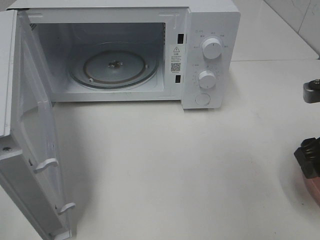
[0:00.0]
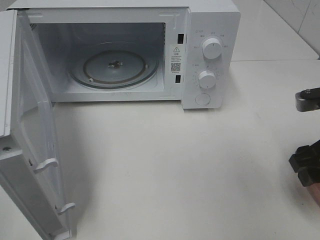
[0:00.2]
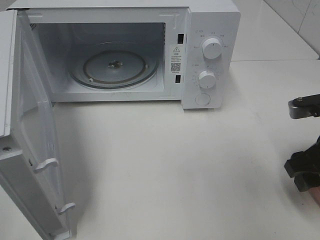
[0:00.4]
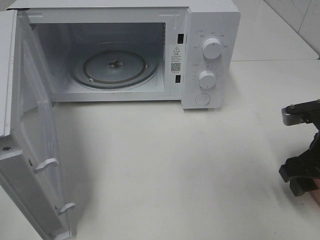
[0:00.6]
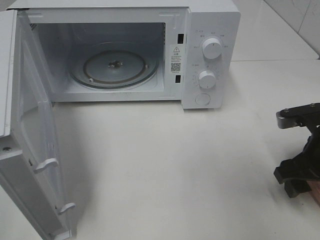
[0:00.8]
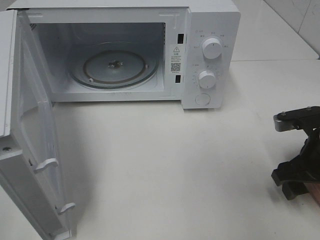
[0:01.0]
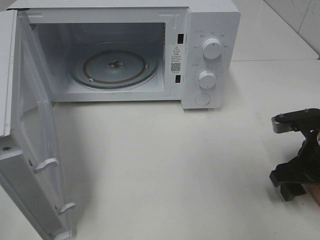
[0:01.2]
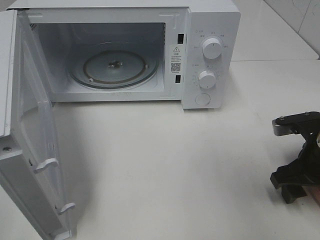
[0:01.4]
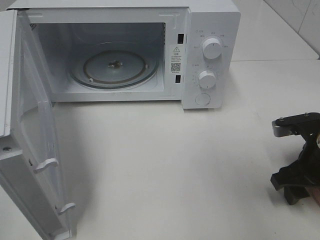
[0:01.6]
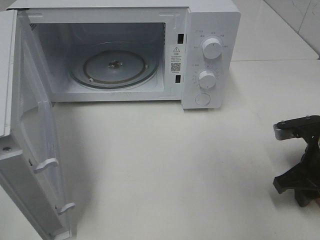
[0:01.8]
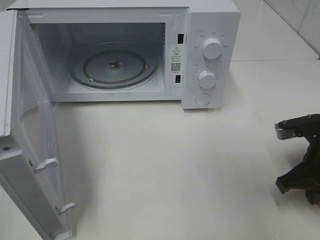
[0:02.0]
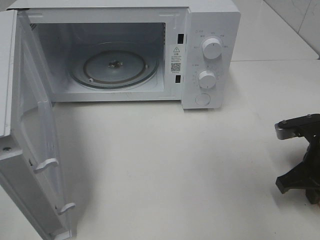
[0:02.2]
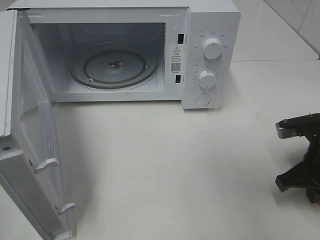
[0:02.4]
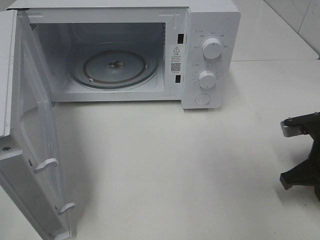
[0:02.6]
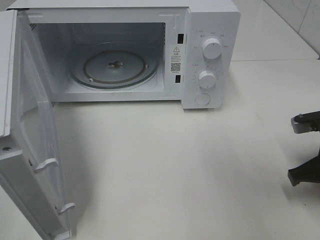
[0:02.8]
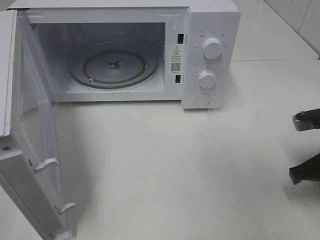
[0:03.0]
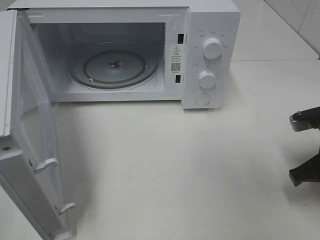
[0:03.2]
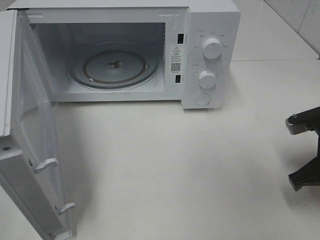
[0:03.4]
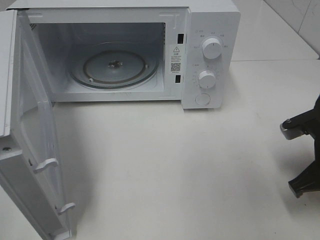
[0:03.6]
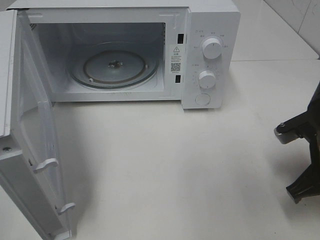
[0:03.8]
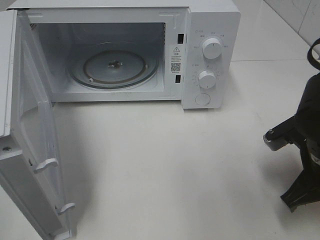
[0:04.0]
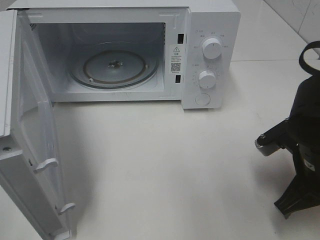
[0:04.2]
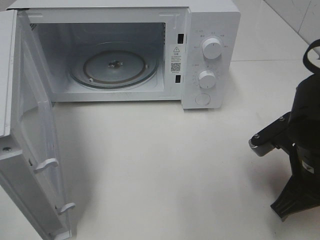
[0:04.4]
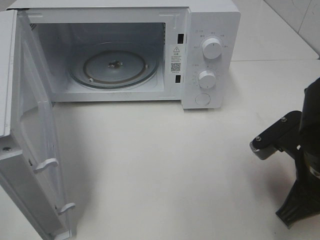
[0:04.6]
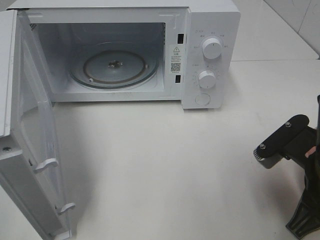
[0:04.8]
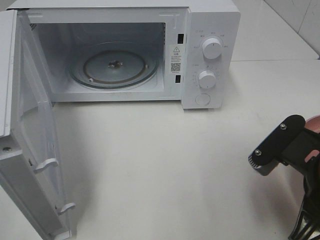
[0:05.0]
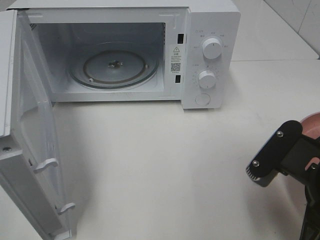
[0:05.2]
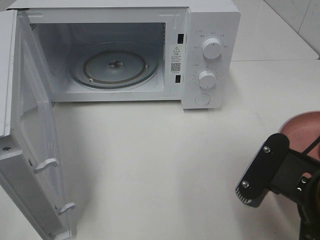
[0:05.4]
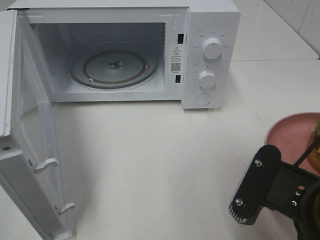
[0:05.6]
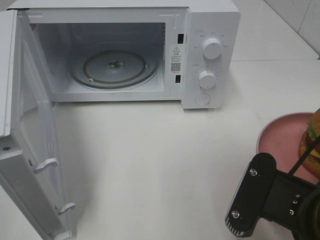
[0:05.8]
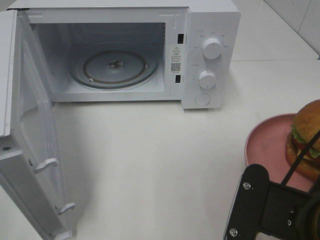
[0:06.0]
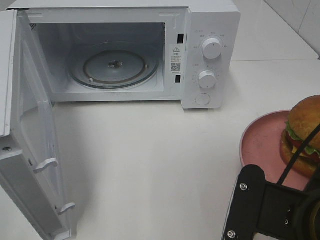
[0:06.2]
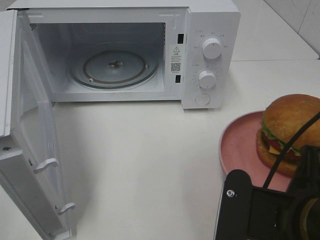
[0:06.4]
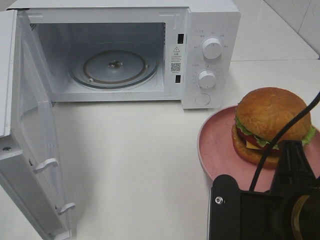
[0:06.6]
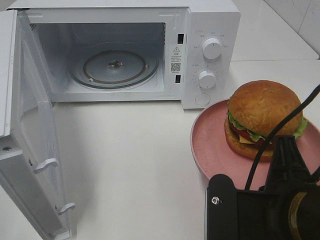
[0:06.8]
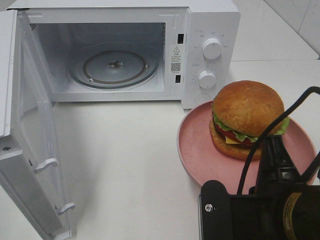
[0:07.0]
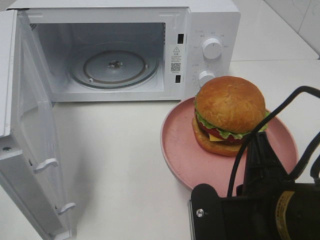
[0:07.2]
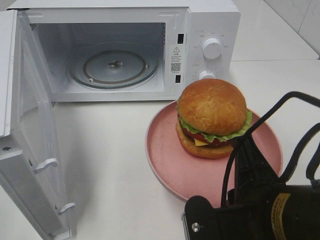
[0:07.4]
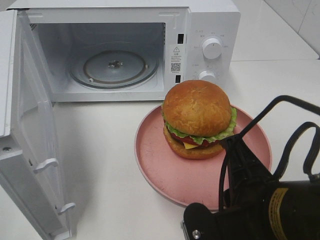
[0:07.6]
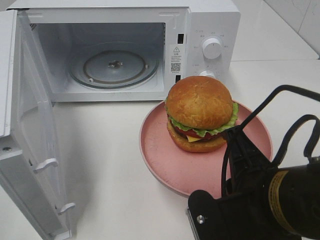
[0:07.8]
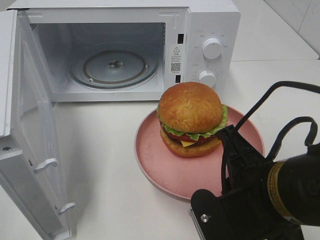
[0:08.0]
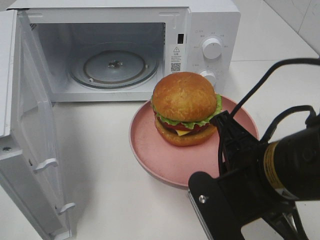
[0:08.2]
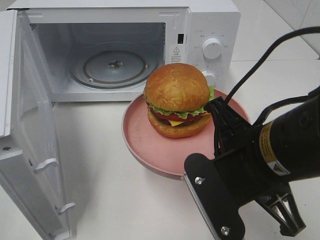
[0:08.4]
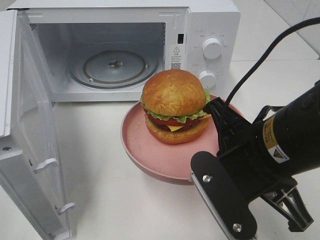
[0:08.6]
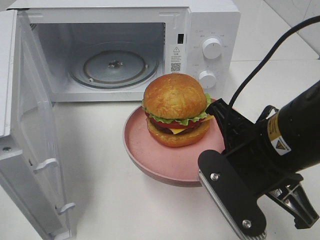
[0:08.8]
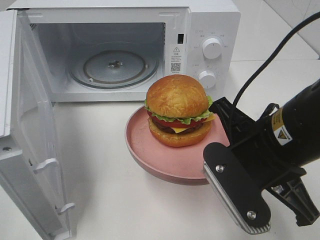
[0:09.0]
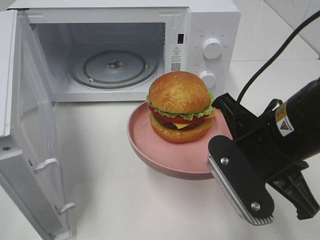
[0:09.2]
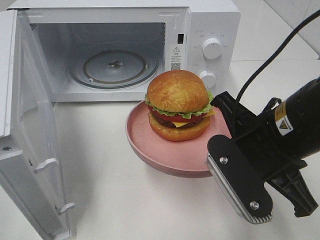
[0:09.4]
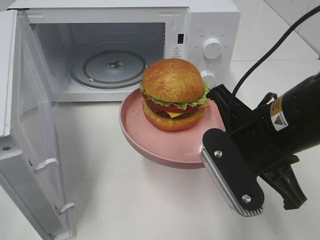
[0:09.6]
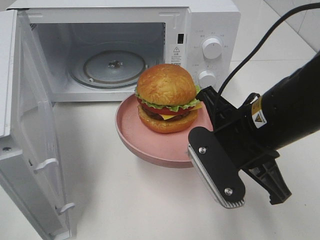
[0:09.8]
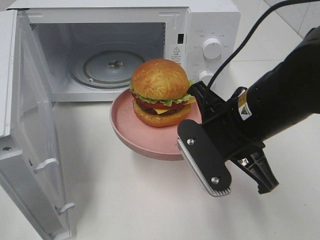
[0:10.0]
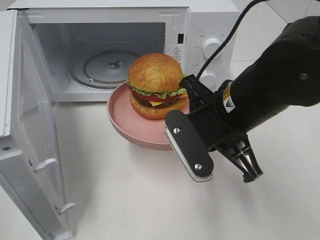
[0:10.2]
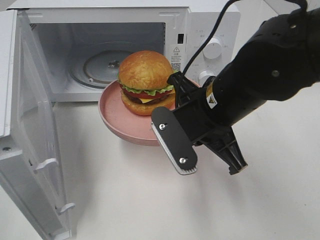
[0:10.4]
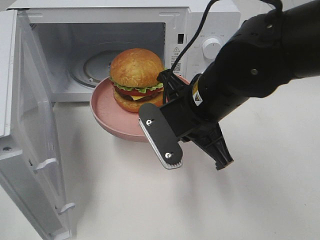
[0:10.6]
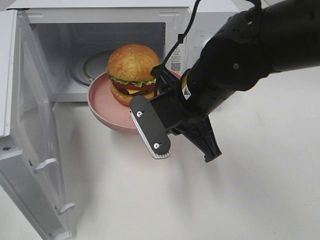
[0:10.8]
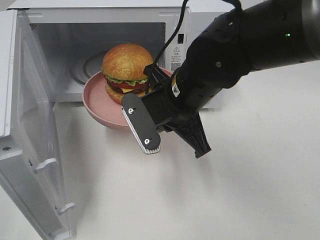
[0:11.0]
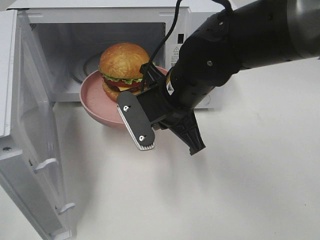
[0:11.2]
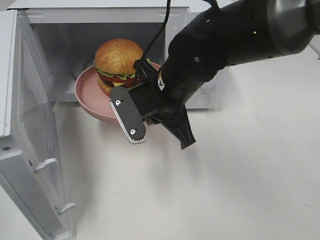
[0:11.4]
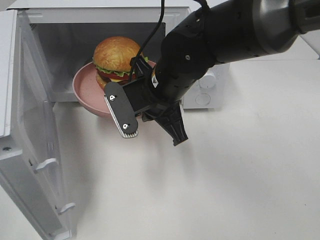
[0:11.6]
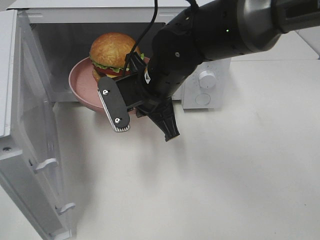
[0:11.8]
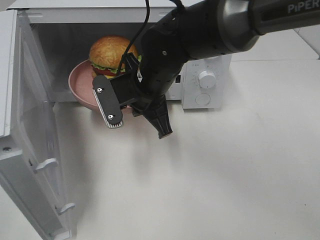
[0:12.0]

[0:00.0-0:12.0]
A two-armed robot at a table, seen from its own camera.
Task of the whole recording: Heat the burger.
Step, 0:00.0 to 0:02.6: Right hand: grab the plate with the hamburger.
0:00.0 to 0:01.6: The right gripper goes approximately 10 cm downward.
0:01.6 to 0:03.0: The right gripper closes up.
0:03.0 to 0:04.4: The right gripper shifts roughly 10 cm to the left.
0:04.4 to 0:06.0: The right gripper heads backward and to the left, covering about 10 cm.
0:07.6 to 0:09.0: The right gripper moves forward, about 10 cm.
0:09.0 to 0:10.4: The right gripper goes roughly 10 cm forward and to the left.
0:10.4 to 0:12.0: The right gripper shifts roughly 10 cm forward and to the left.

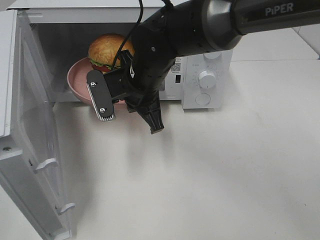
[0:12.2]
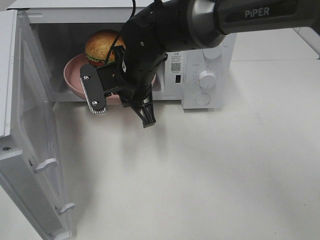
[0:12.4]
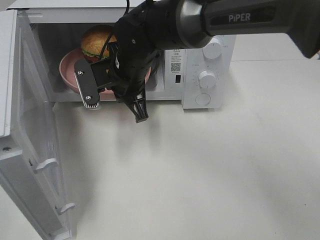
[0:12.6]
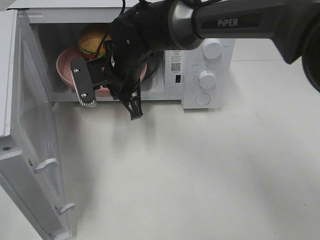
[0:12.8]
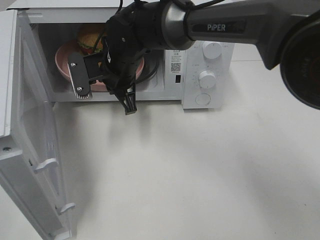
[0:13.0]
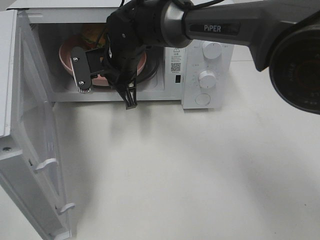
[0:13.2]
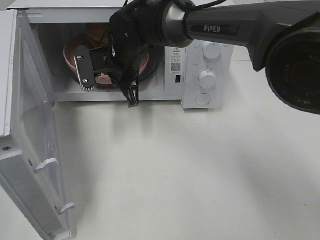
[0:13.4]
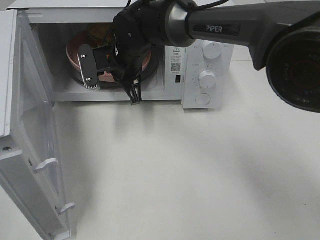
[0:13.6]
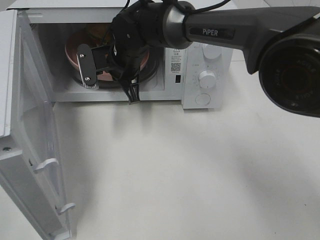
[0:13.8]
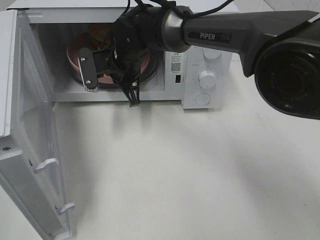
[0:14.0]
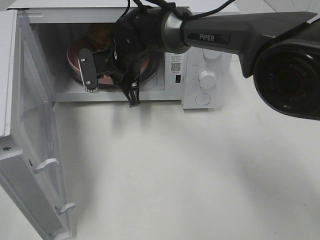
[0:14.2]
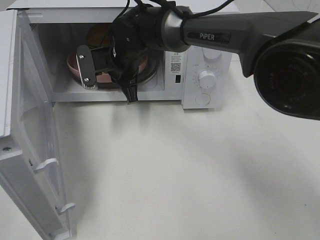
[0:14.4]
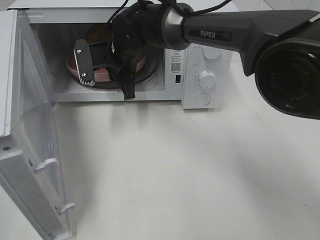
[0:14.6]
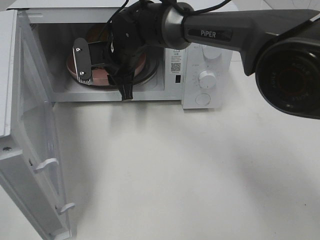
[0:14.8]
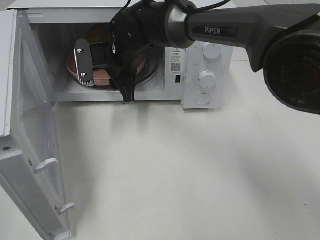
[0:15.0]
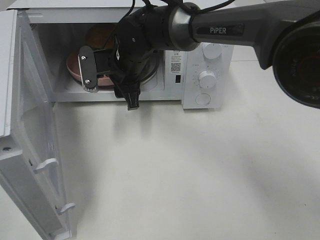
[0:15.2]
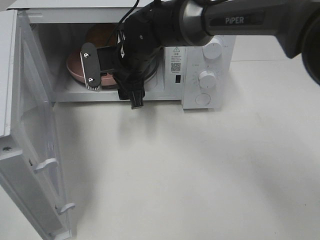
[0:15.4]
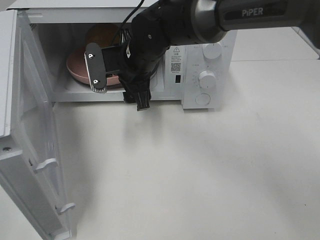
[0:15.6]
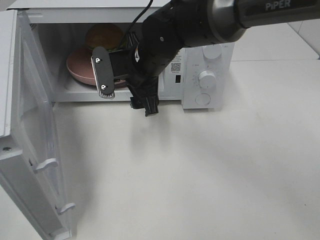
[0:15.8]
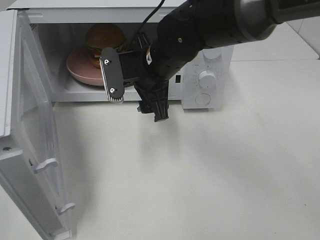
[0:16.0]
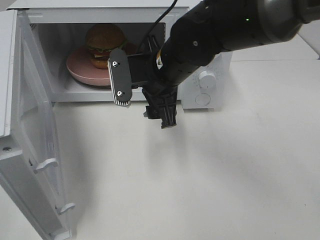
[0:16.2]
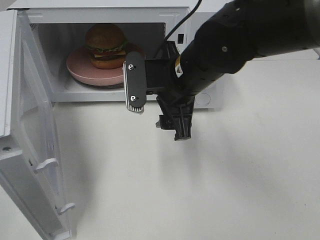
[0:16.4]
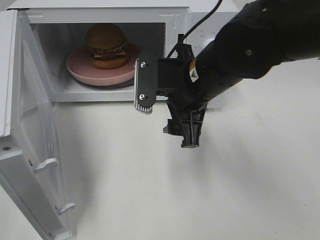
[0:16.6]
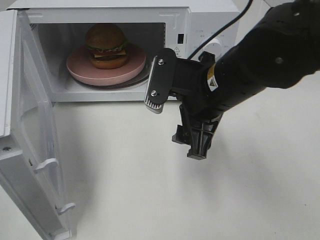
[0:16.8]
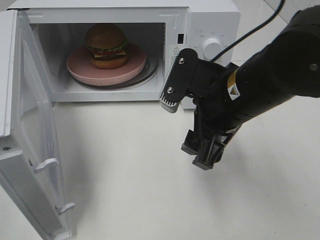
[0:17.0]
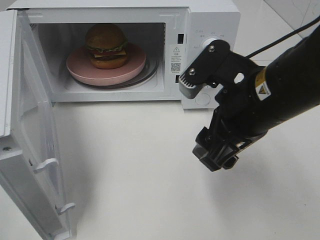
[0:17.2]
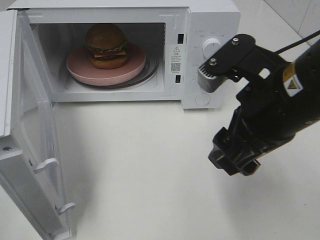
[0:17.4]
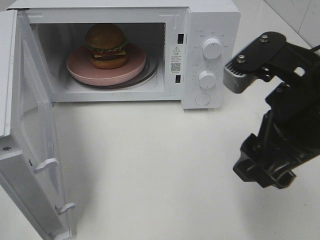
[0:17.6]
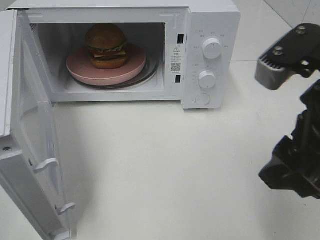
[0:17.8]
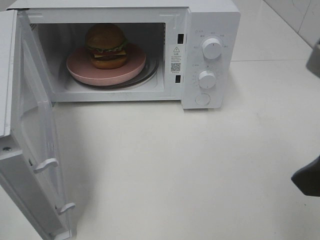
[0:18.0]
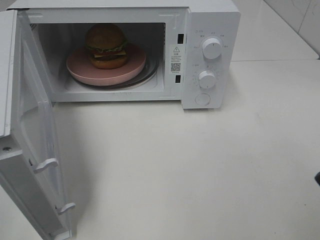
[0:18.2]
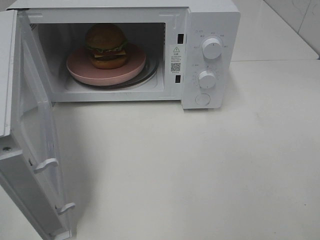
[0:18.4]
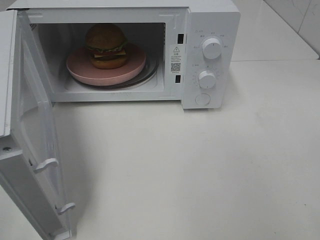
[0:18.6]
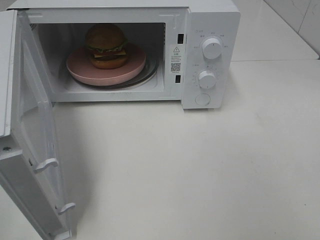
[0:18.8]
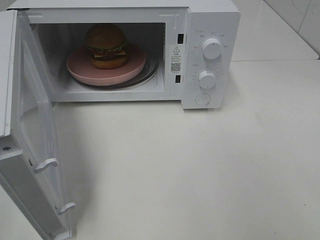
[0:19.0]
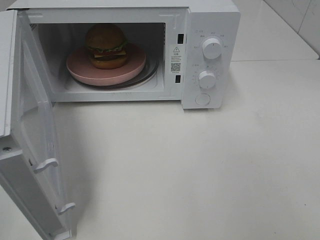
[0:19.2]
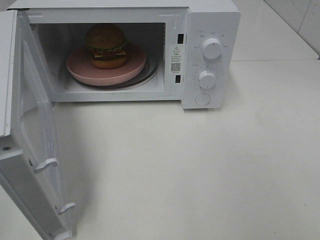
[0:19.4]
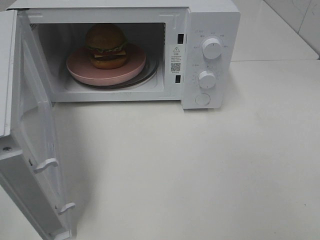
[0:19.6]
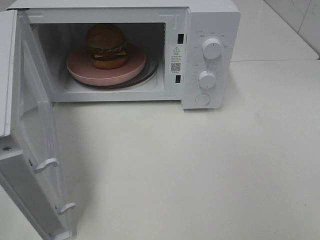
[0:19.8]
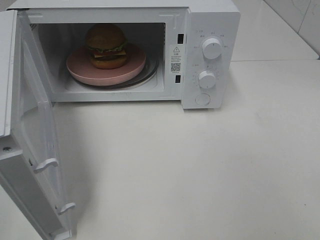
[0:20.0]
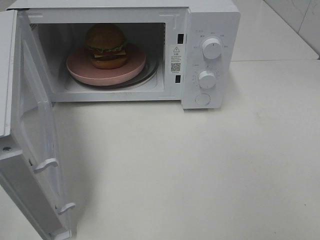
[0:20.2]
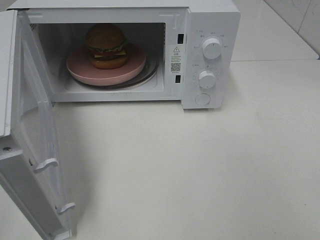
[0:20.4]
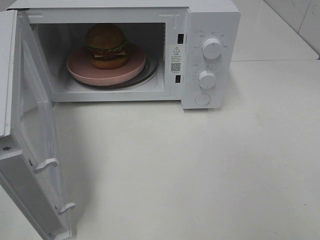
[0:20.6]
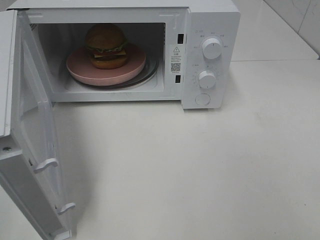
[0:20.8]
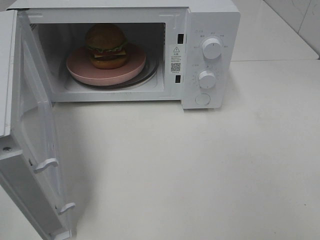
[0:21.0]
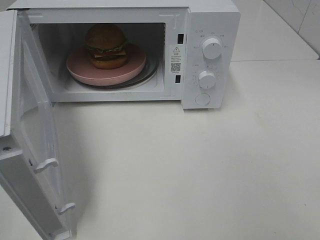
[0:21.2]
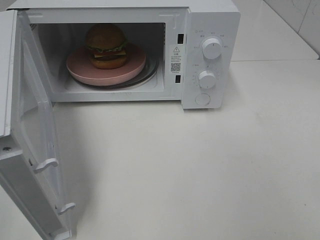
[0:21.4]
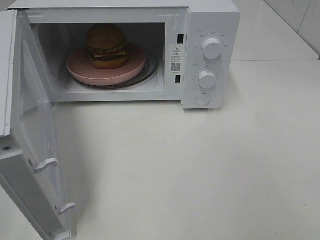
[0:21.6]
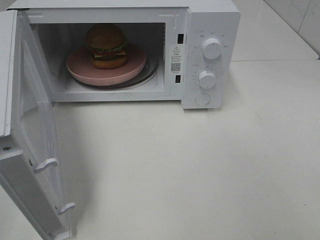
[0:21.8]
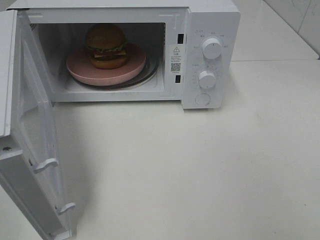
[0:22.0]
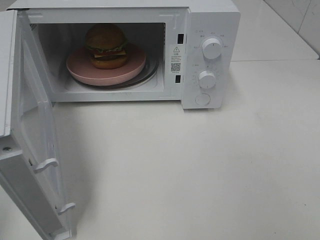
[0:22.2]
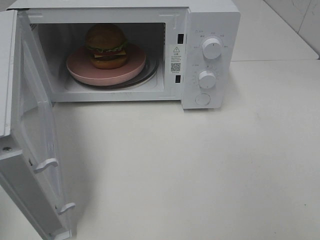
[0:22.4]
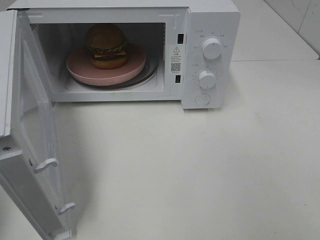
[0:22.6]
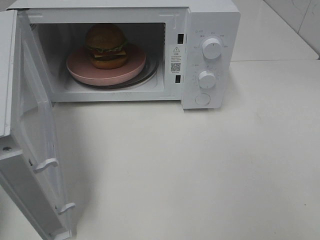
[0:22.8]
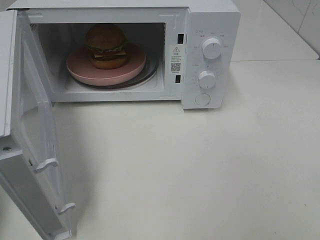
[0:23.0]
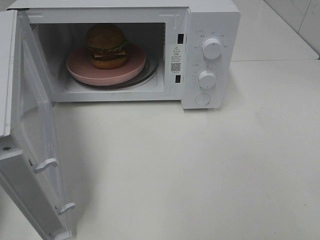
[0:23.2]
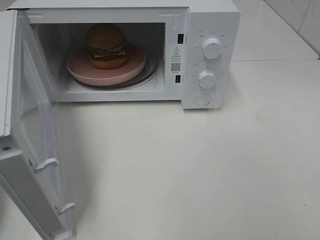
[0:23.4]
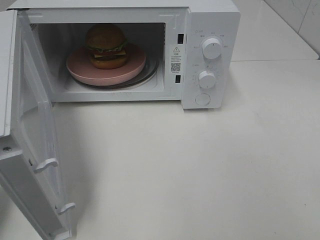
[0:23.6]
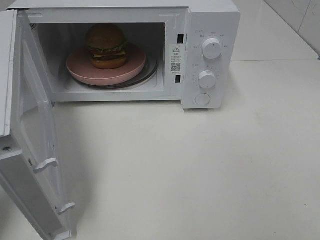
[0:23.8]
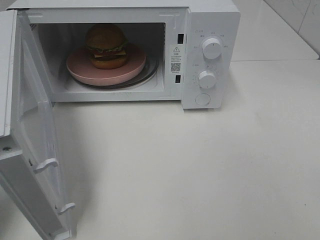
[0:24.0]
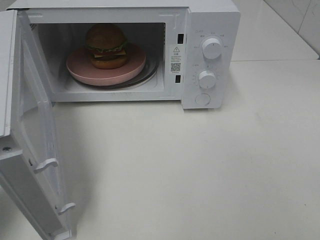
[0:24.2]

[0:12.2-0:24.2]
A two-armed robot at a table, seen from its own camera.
Task of the whole recording: Heat the burger.
Step, 0:12.2 to 0:14.6: Right hand: place the plate in the microwave.
0:12.2 to 0:13.8: The right gripper travels forward by approximately 10 cm.
0:13.8 to 0:15.2: The right gripper opens its fingers.
0:15.2 to 0:16.6: The right gripper is displaced backward and to the right by approximately 15 cm.
0:16.6 to 0:18.2: The right gripper heads backward, to the right and upward, covering approximately 25 cm.
0:19.8 to 0:21.2: Both grippers stay put.
0:22.6 to 0:24.2: The left gripper is displaced downward and forward by approximately 15 cm.
